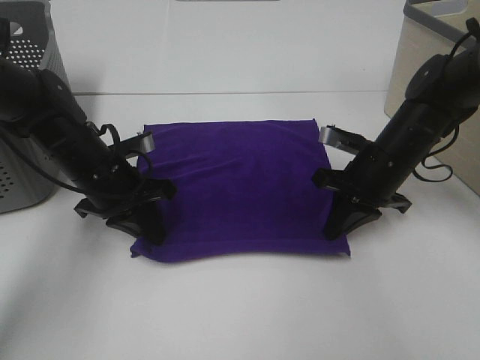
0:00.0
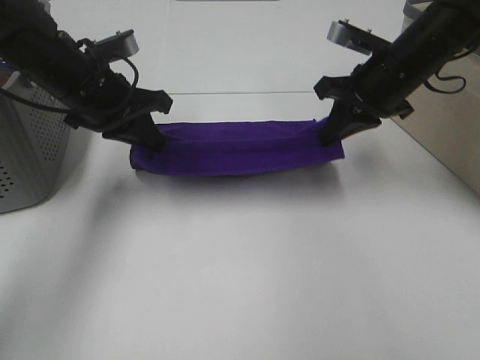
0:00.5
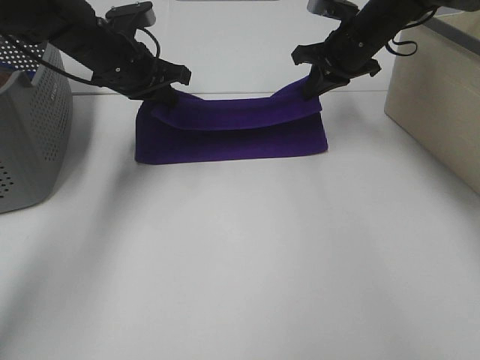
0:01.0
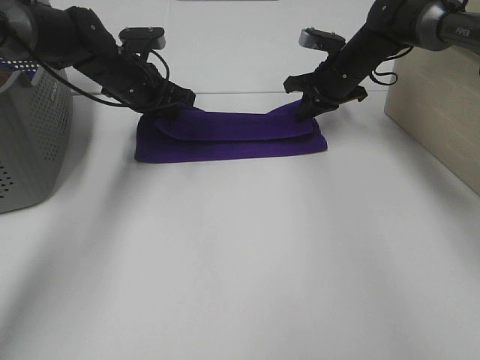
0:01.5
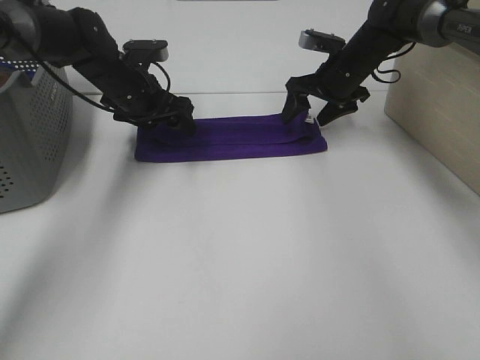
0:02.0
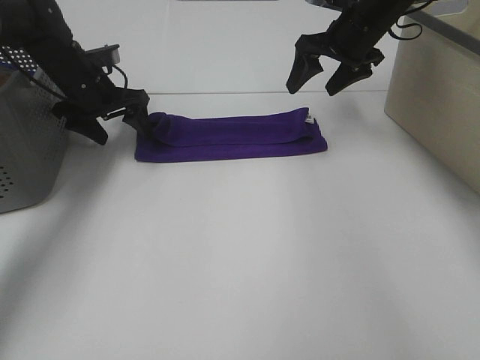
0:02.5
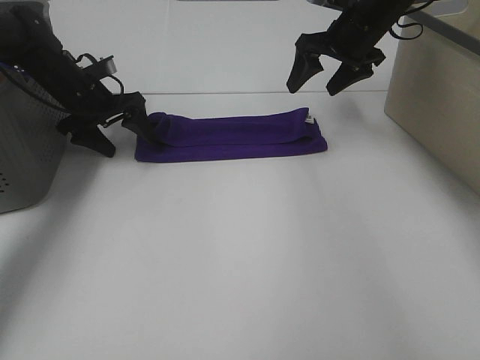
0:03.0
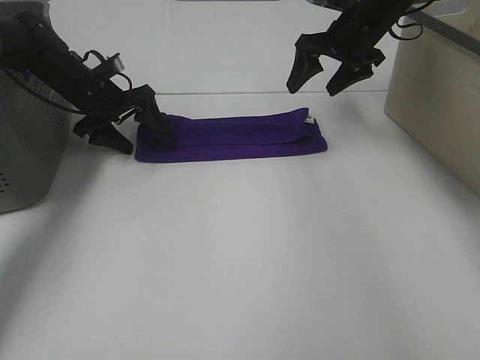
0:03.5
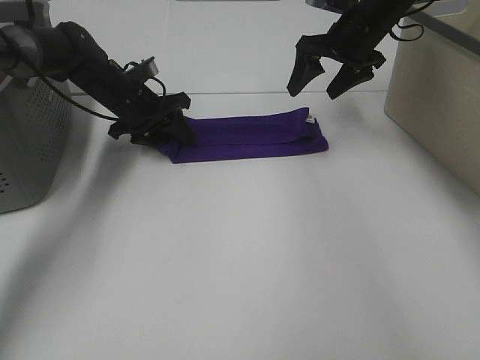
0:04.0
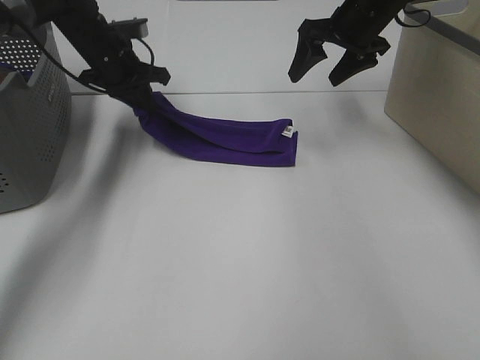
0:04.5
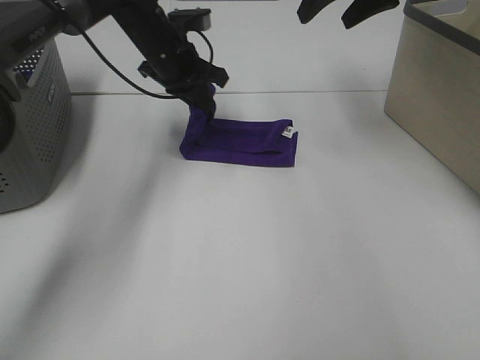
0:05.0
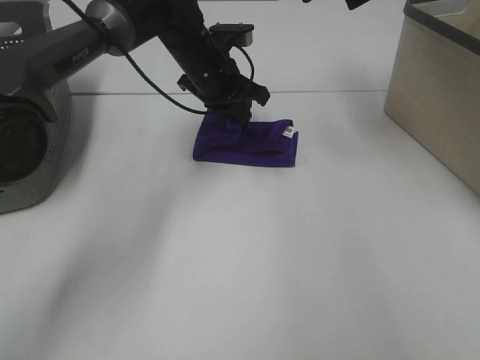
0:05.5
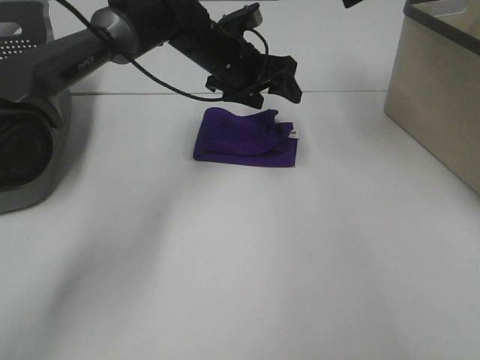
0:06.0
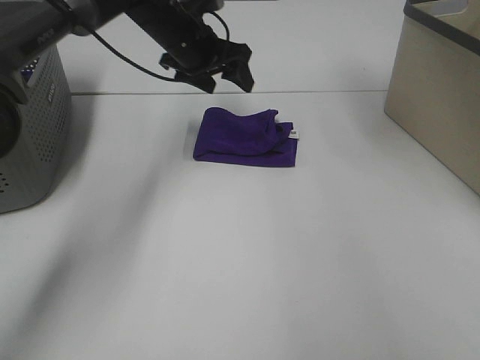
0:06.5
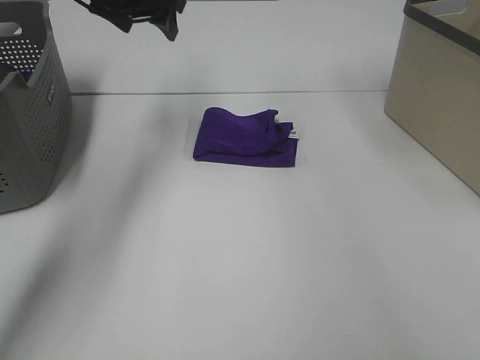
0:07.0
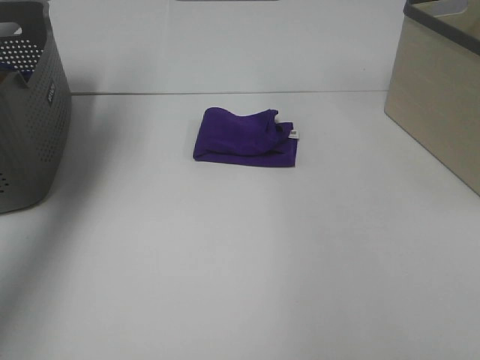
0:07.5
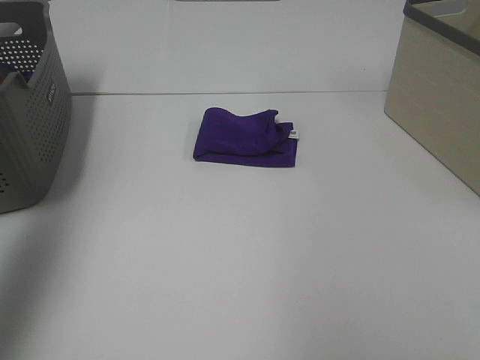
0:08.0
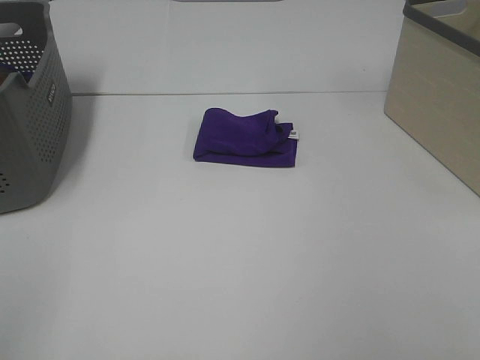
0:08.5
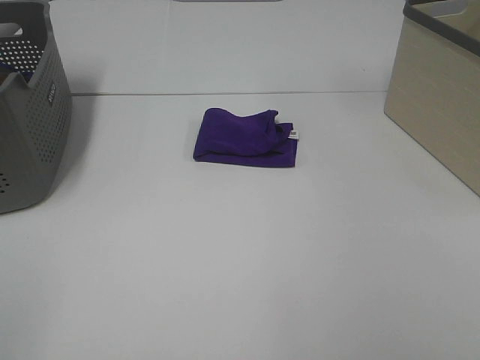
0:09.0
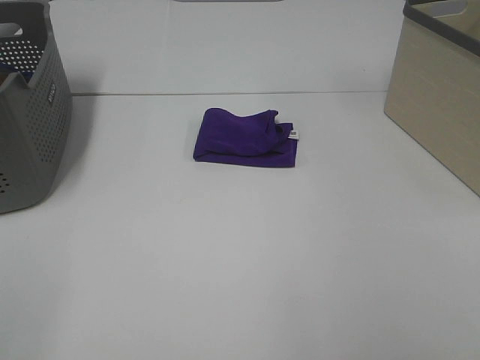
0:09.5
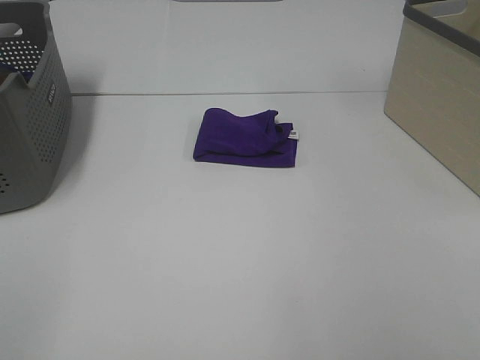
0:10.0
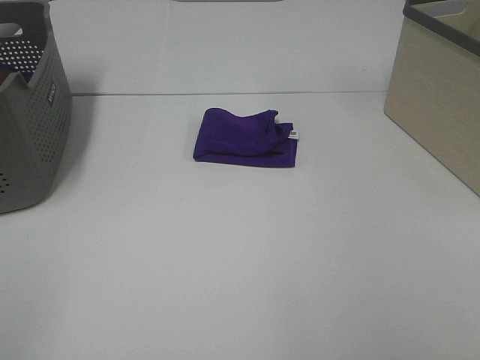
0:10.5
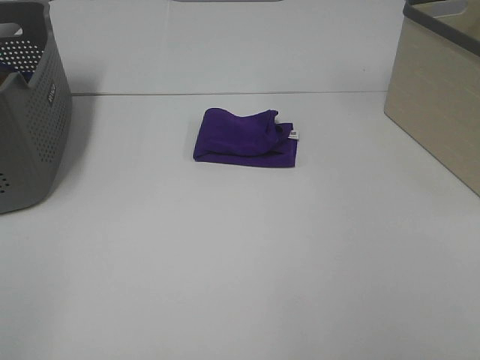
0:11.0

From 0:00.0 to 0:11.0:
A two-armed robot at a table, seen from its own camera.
Task of the whole recording: Fold towels.
Step, from 0:00.0 to 0:01.5: Left hand: fold the purple towel up.
Step, from 0:00.0 to 0:01.5: Right hand: fold the purple towel up.
Step, from 0:02.0 to 0:05.5: Left hand: fold the purple towel from left to right.
From 0:00.0 to 0:02.0: Both grippers move forward, about 15 cm. The right gripper opens. Meanwhile the left gripper opens.
From 0:02.0 to 0:03.5: The left gripper moves to the left, approximately 5 cm; the right gripper goes roughly 5 cm upward.
From 0:03.5 to 0:05.5: The right gripper heads upward, covering about 15 cm, while the left gripper moves to the right, some 20 cm, and closes up.
From 0:05.5 to 0:07.5: The right gripper goes approximately 20 cm backward, to the right and upward, while the left gripper travels to the left and upward by roughly 35 cm, and opens its fingers.
From 0:07.5 to 0:09.0: The left gripper heads backward, covering some 40 cm.
